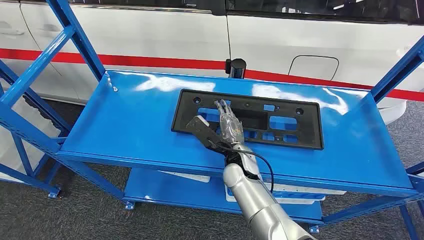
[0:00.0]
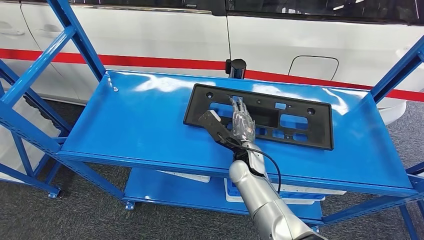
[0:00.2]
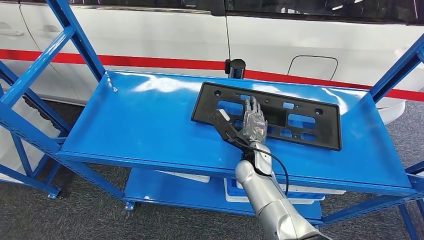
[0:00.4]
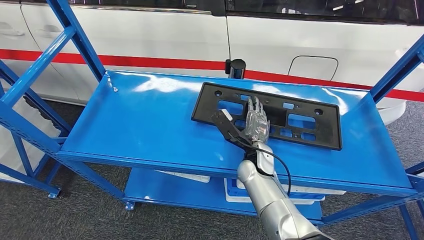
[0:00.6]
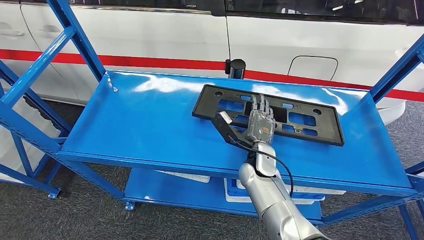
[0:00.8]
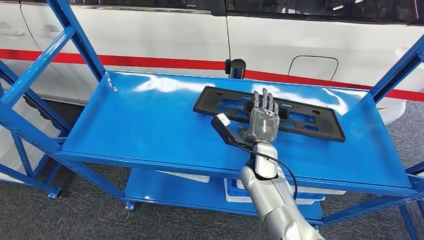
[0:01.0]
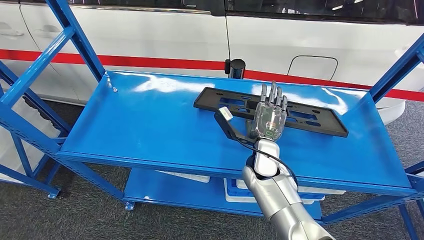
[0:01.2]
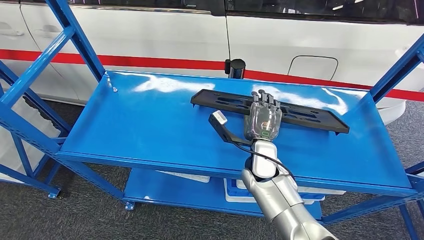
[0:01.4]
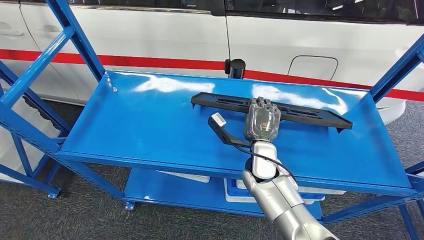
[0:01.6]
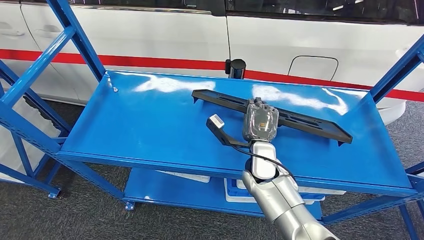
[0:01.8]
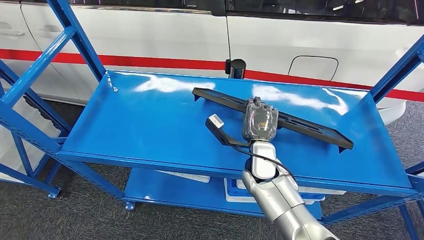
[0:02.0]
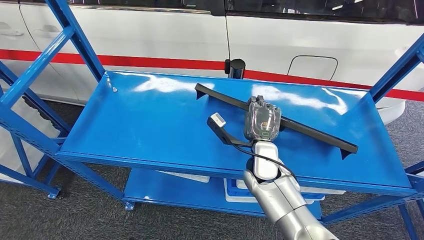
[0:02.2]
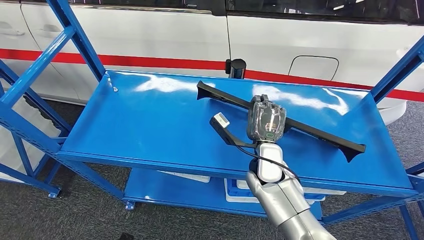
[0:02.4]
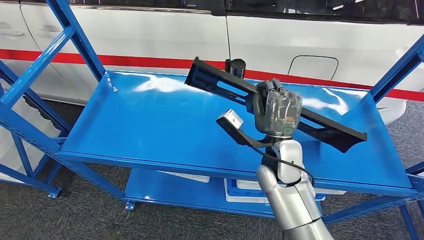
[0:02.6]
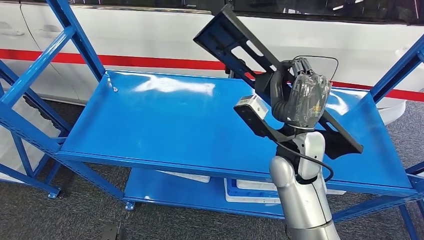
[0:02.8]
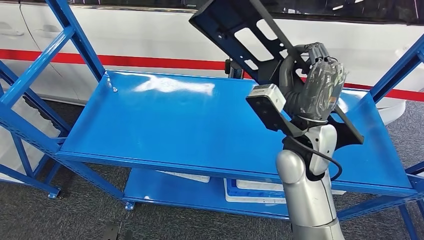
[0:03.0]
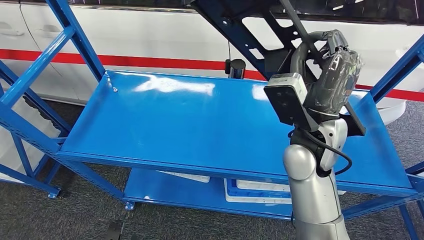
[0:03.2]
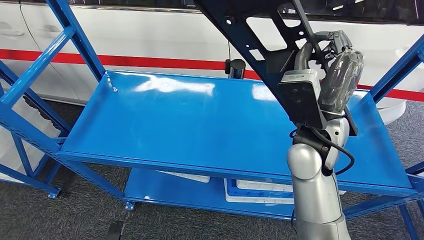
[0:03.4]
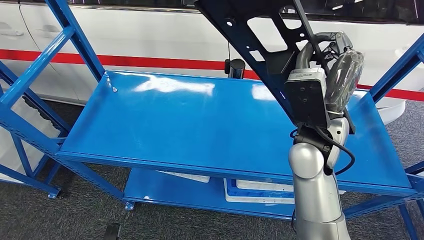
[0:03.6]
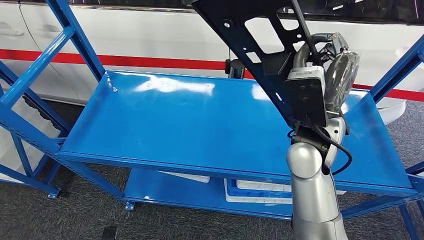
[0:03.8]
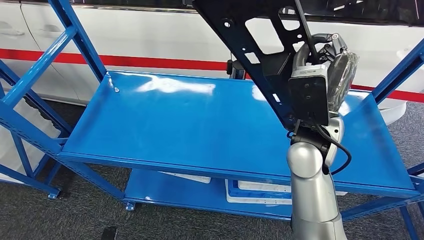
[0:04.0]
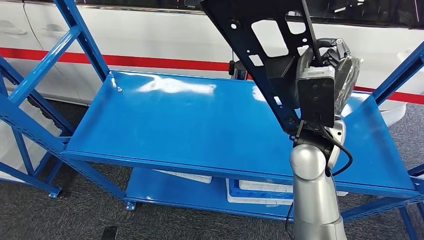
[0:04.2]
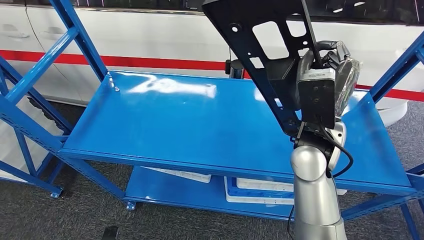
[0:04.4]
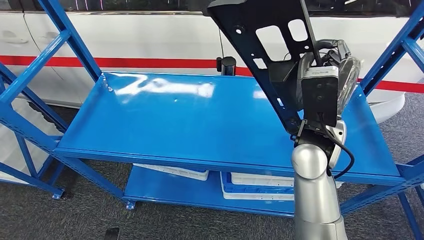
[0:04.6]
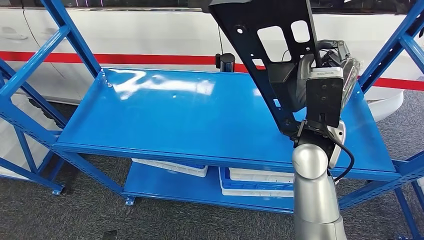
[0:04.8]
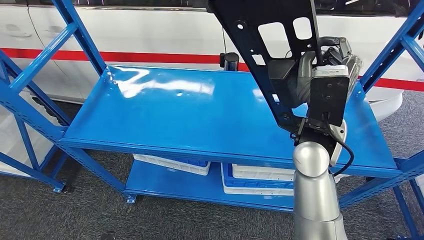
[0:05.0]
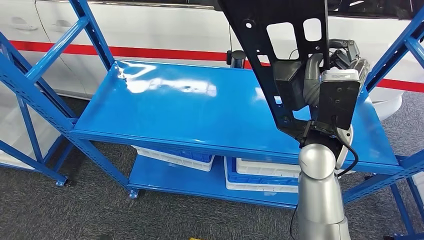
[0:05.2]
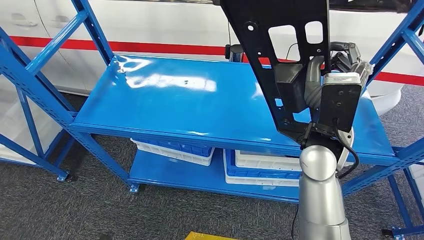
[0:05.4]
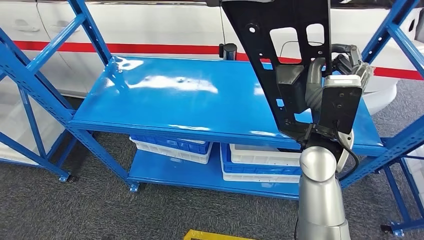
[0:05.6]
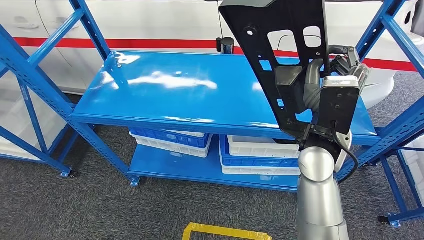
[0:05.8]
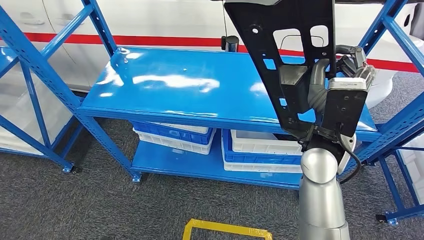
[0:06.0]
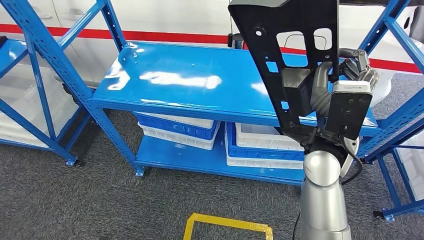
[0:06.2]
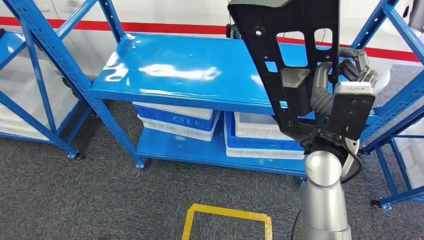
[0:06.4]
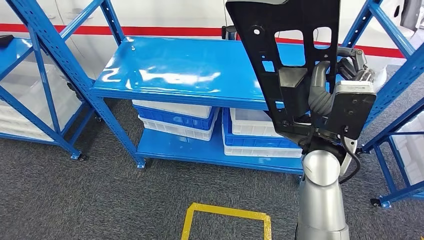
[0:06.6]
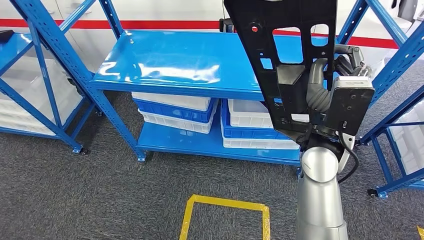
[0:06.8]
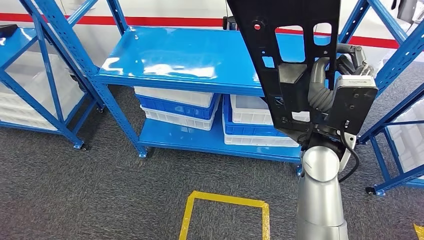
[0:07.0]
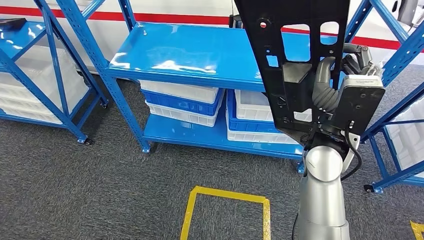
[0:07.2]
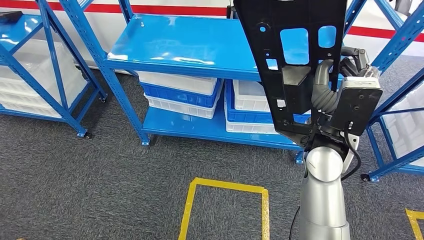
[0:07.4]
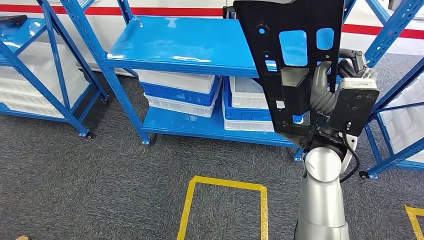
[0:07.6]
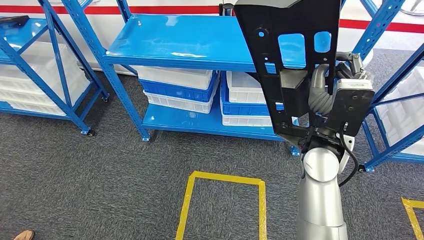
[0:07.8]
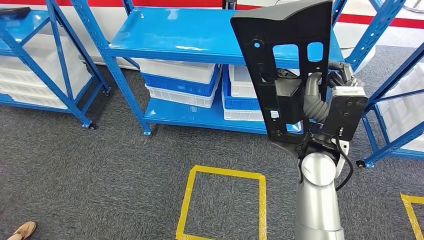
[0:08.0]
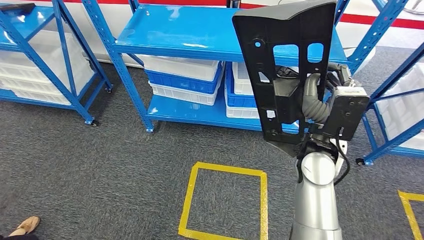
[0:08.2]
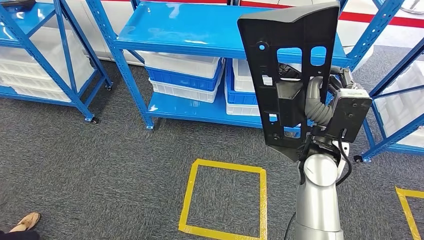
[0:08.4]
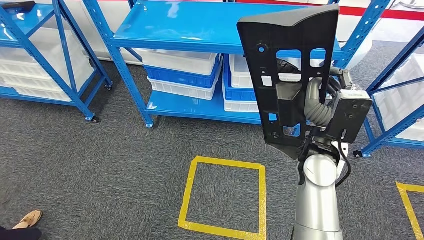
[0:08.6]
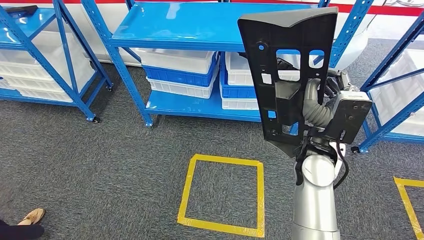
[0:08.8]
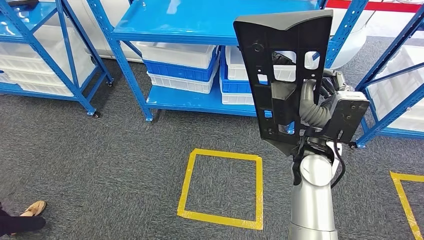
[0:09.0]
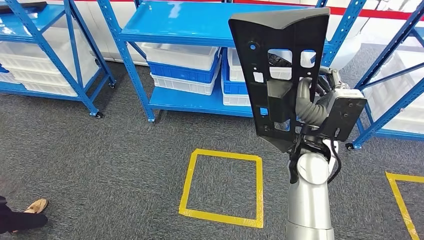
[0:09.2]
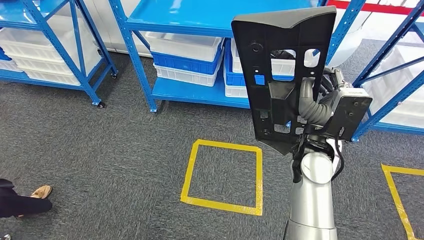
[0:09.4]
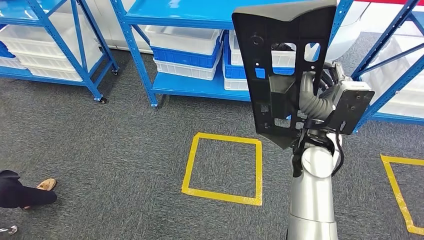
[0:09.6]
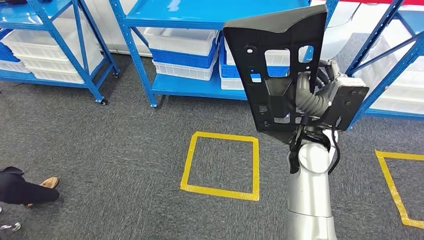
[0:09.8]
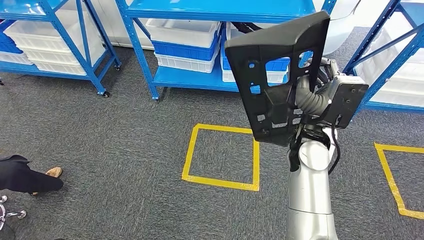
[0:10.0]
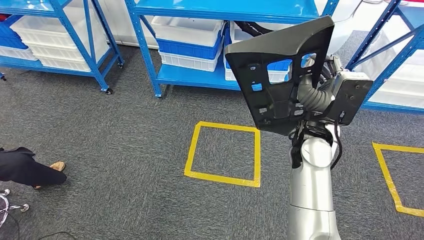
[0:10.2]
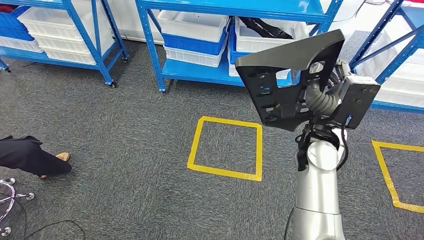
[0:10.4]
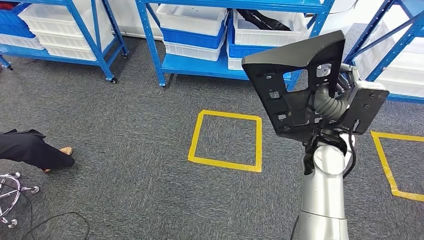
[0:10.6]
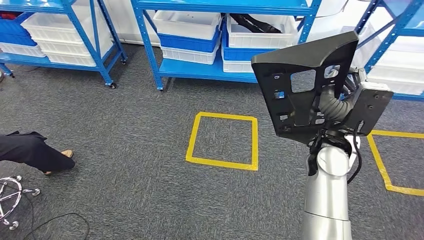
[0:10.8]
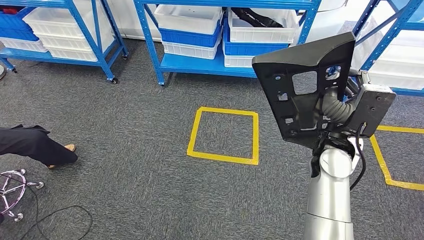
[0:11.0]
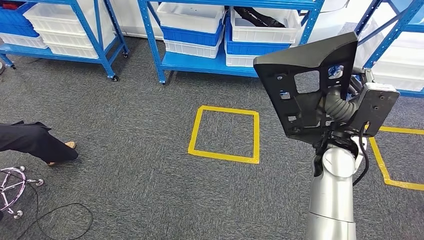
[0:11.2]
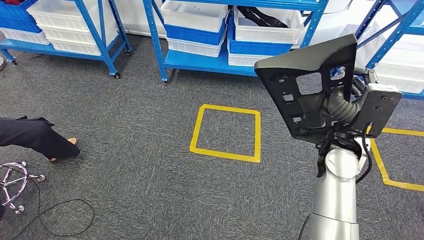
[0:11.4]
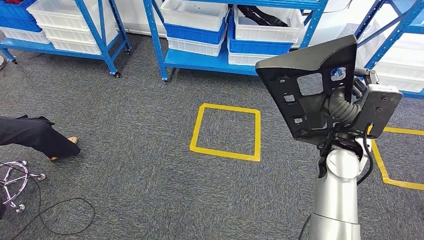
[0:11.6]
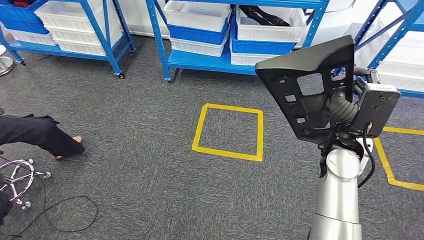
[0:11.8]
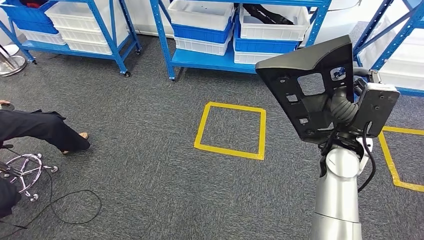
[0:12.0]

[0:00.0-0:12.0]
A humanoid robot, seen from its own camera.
Step, 0:00.0 to 0:04.0: Pick up the large material from the shelf.
0:01.6 to 0:03.0: The right hand goes approximately 15 cm upward.

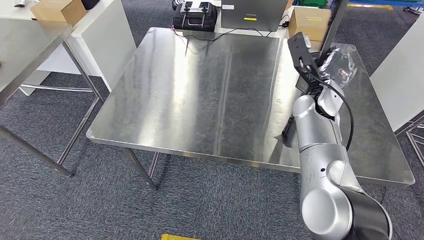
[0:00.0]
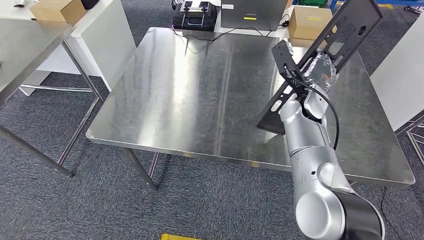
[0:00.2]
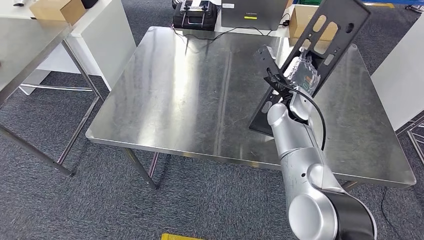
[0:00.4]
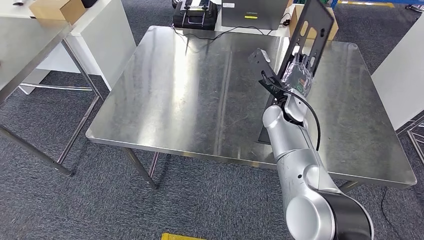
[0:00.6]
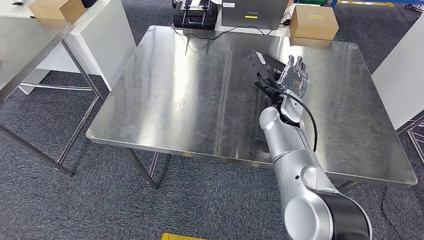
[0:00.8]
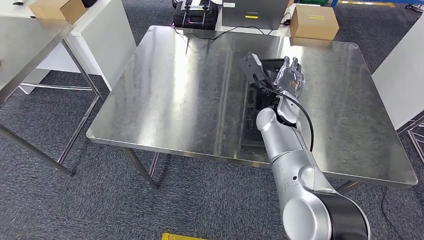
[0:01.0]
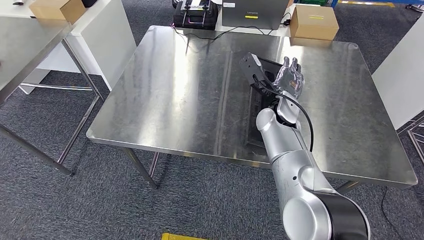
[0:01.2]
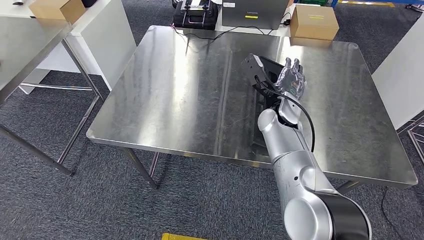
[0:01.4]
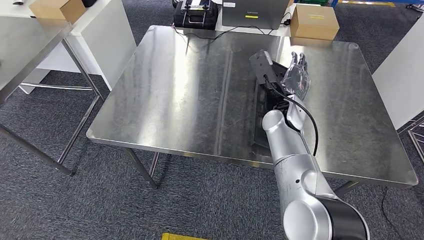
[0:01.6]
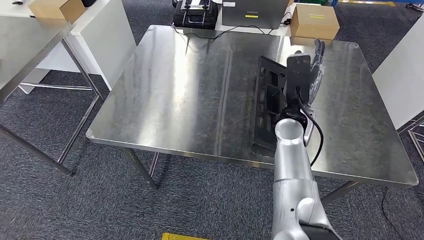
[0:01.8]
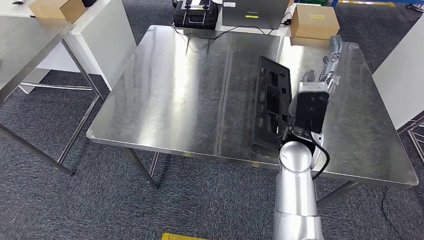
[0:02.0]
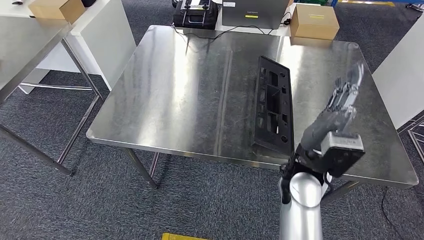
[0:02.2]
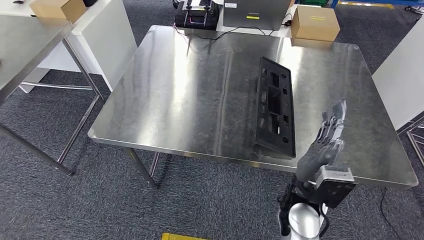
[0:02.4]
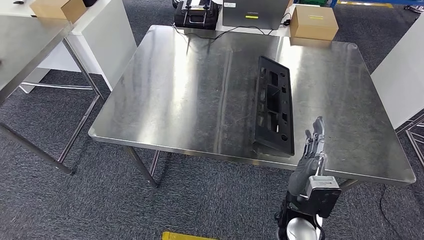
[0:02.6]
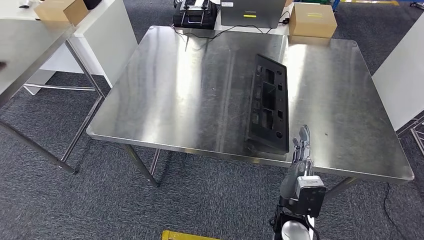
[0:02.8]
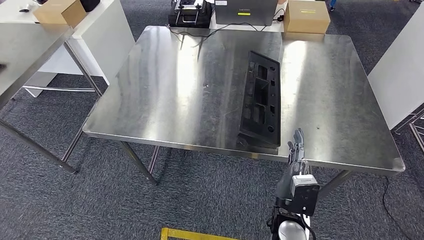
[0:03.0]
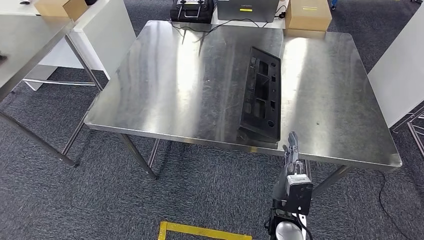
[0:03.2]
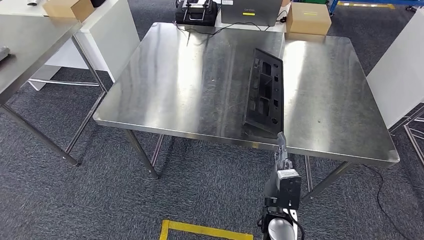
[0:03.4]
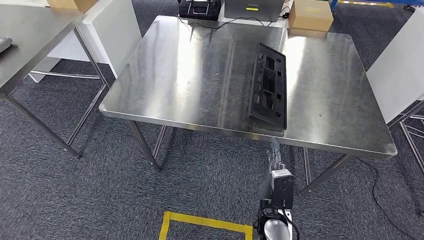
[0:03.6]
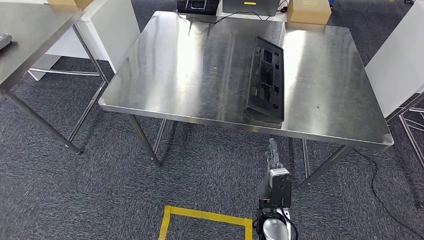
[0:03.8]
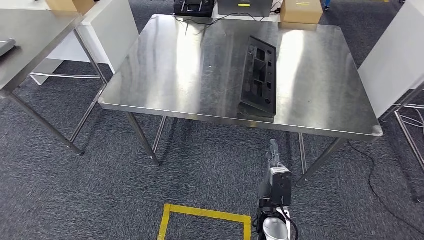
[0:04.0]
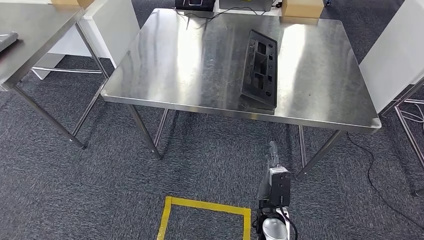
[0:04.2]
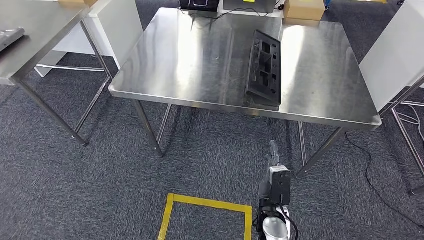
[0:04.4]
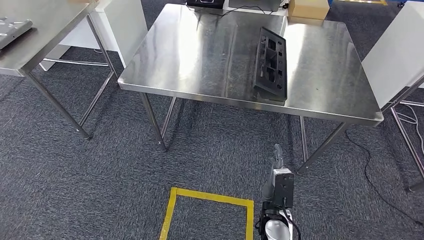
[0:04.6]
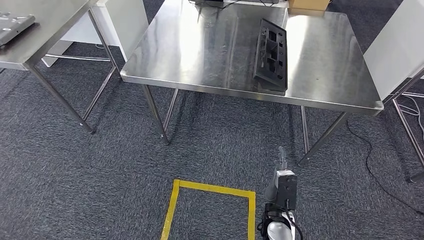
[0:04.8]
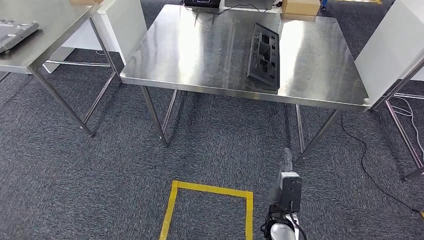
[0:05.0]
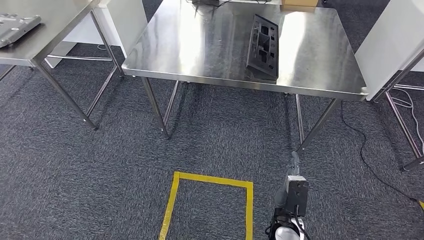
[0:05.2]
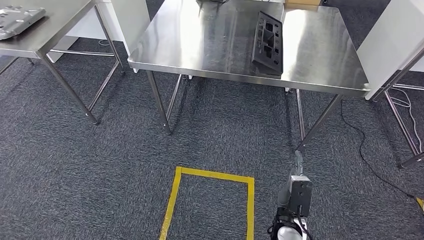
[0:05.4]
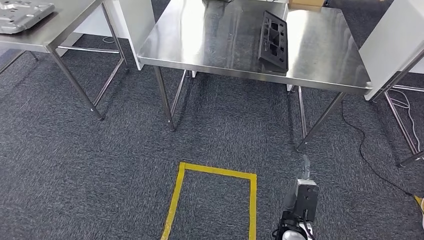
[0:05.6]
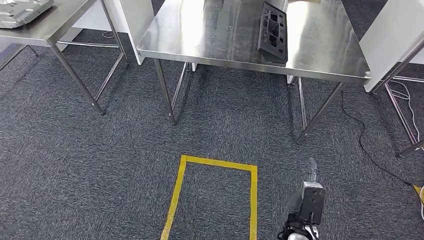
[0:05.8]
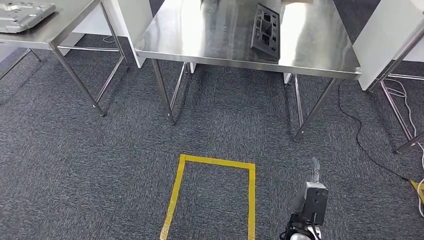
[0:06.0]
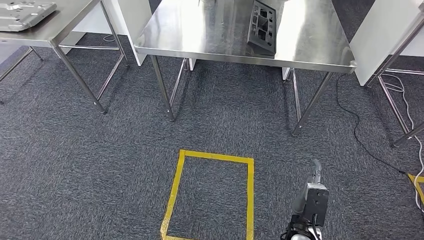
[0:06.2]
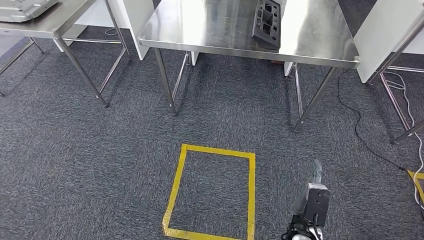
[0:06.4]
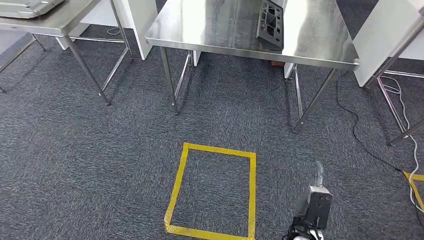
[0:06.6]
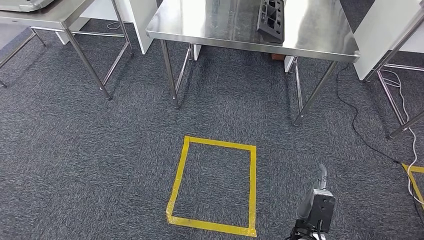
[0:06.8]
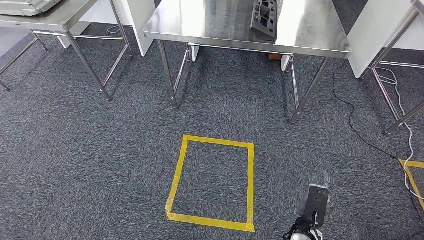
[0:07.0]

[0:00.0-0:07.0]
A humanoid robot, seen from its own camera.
Step, 0:00.0 to 0:03.0: Insert the large material into the corresponding hole on the workbench.
0:01.4 to 0:02.8: The right hand shifts some 25 cm backward and downward.
